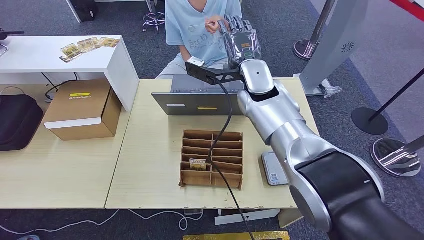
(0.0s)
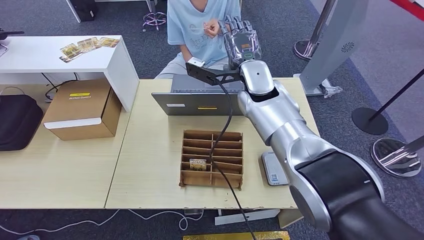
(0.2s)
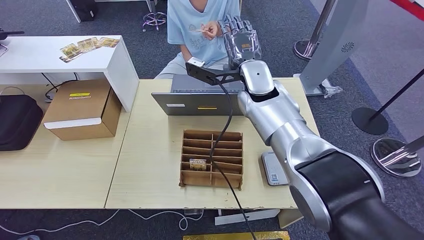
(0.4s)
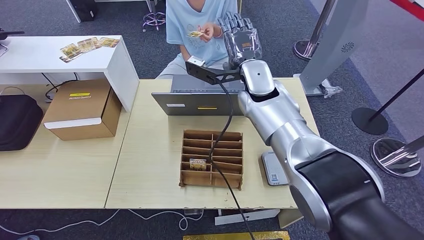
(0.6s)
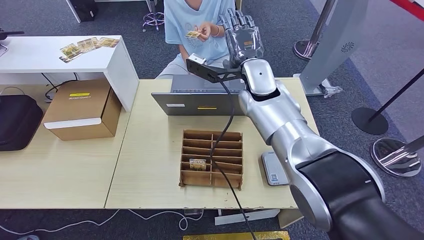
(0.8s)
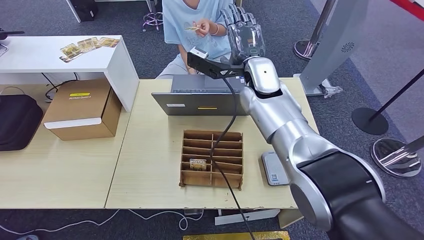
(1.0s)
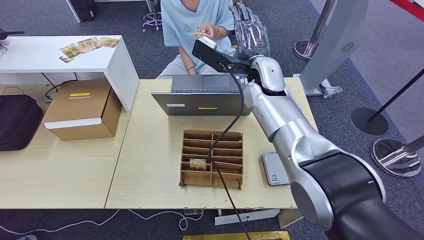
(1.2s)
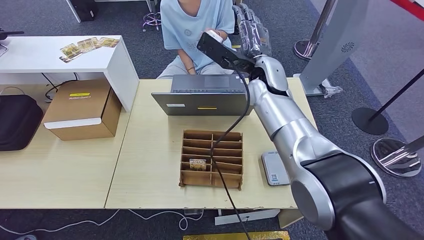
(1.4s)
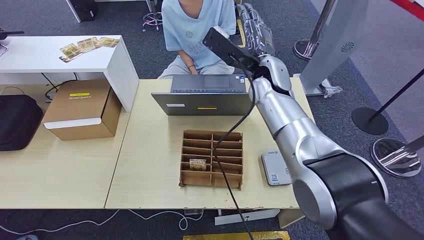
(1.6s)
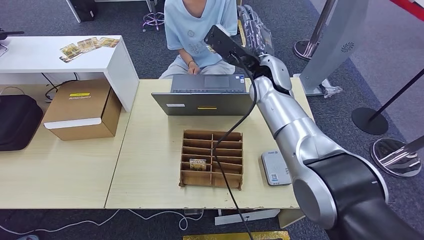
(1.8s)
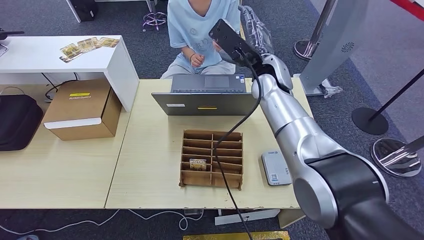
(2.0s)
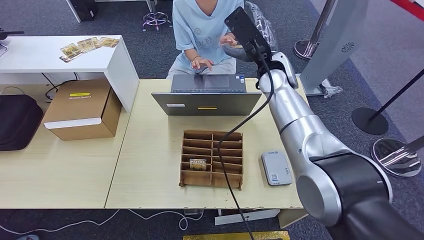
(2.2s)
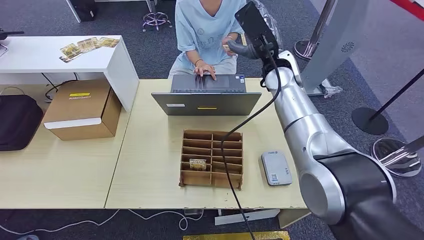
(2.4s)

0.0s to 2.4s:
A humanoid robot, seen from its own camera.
Step, 0.0s to 2.2s: Hand the room key to the person.
